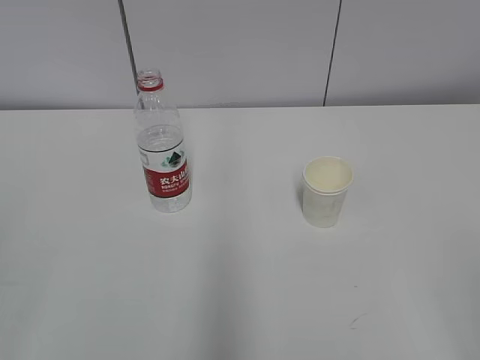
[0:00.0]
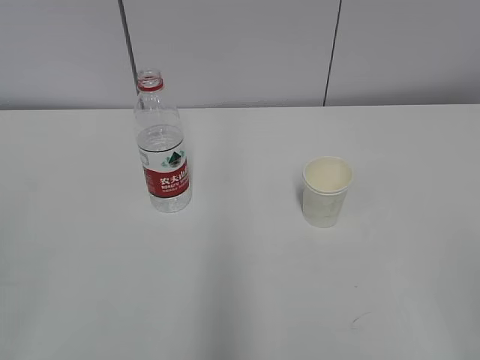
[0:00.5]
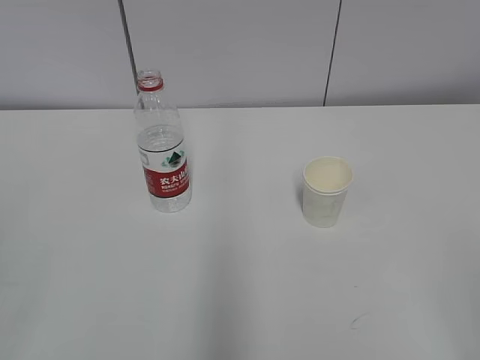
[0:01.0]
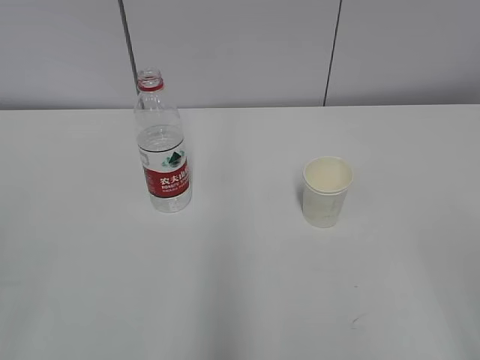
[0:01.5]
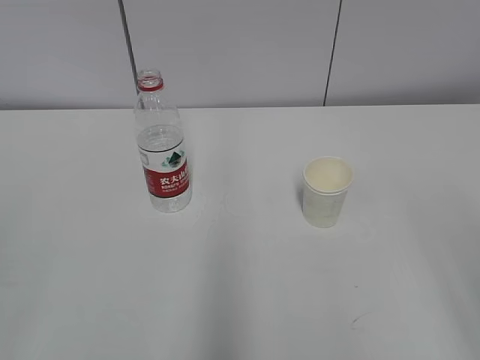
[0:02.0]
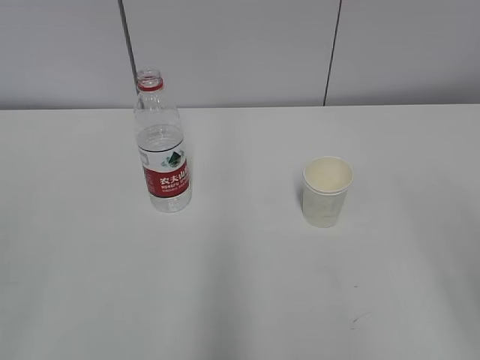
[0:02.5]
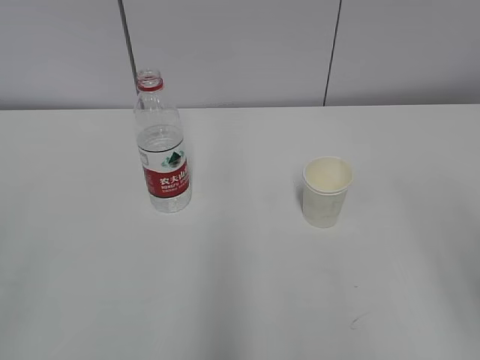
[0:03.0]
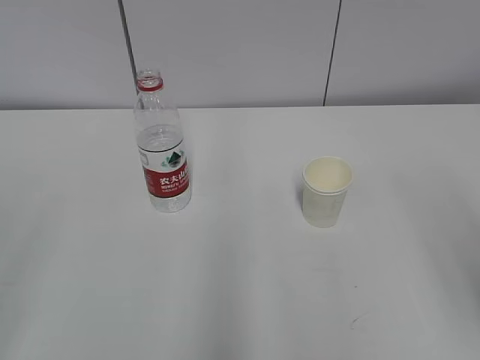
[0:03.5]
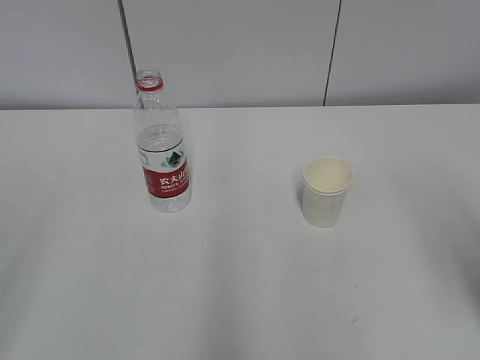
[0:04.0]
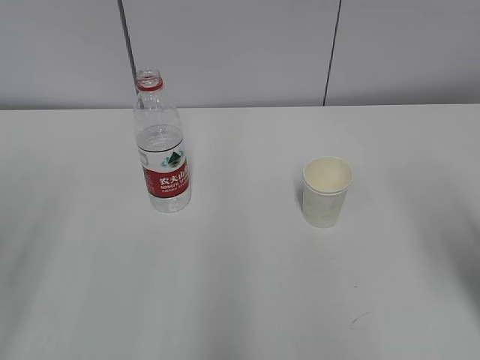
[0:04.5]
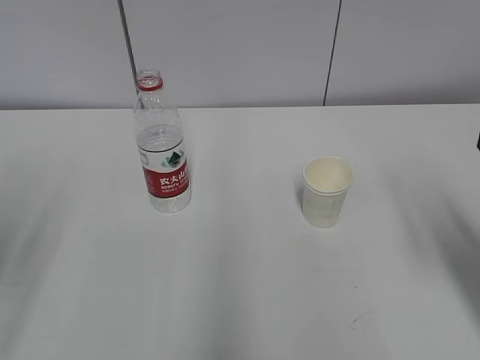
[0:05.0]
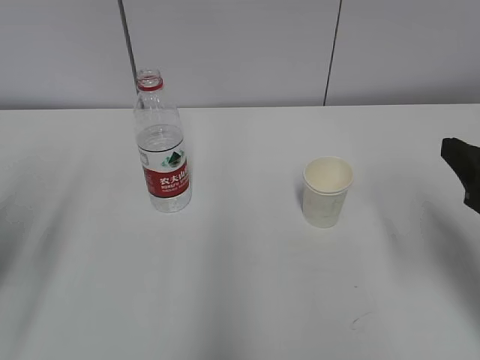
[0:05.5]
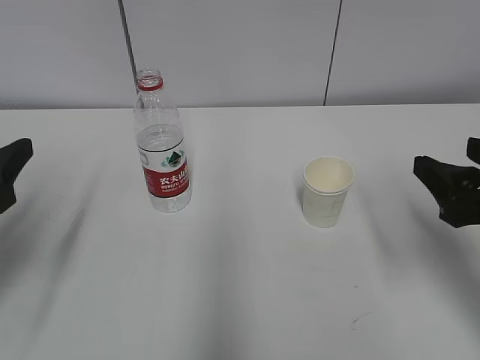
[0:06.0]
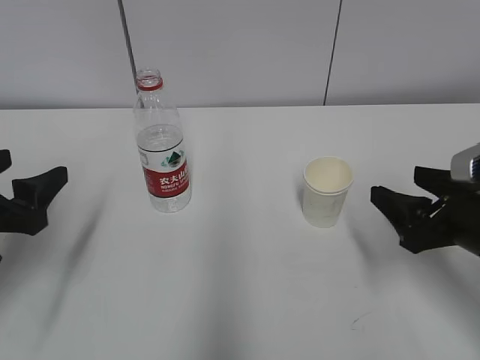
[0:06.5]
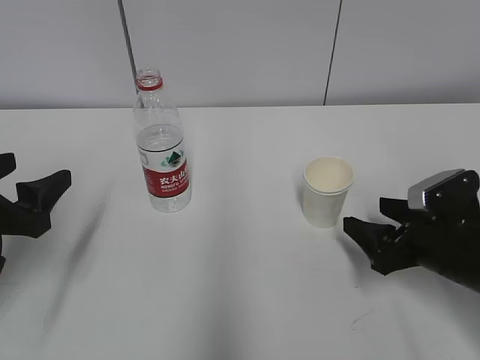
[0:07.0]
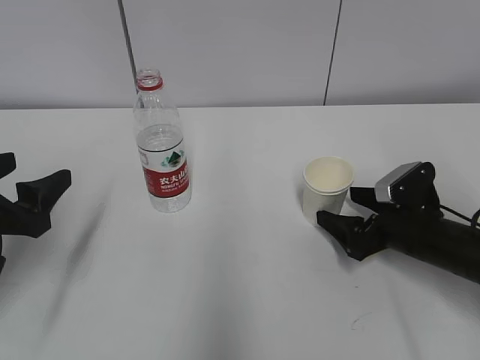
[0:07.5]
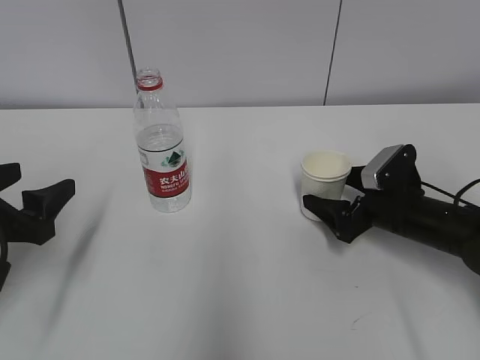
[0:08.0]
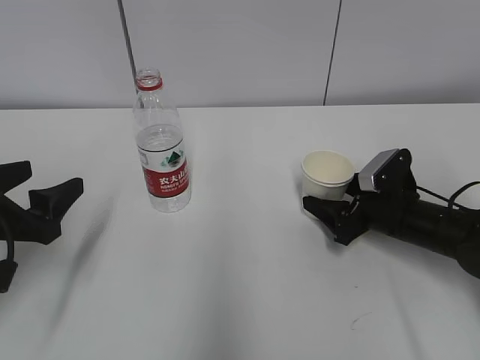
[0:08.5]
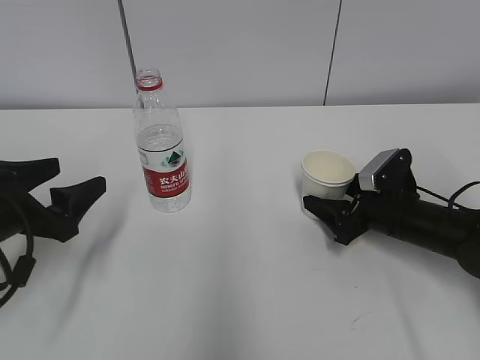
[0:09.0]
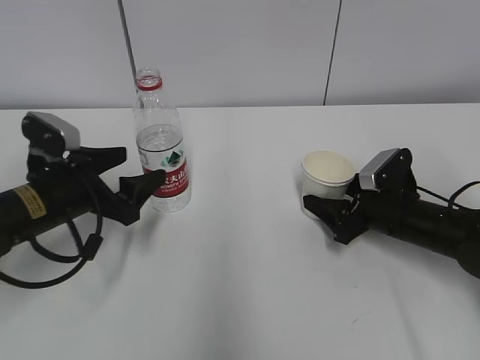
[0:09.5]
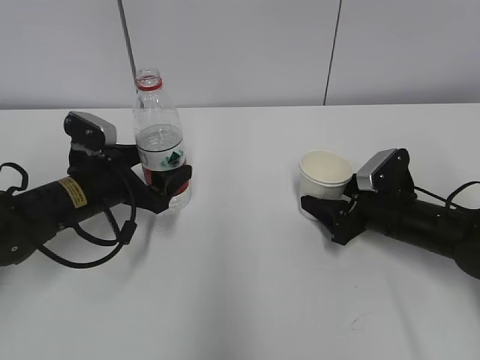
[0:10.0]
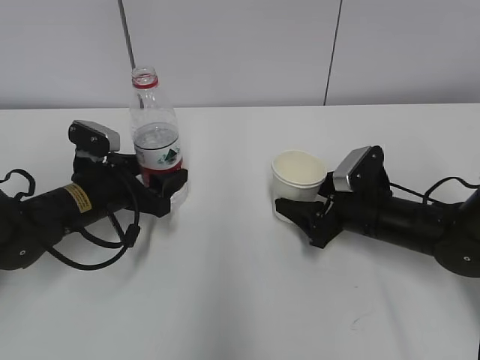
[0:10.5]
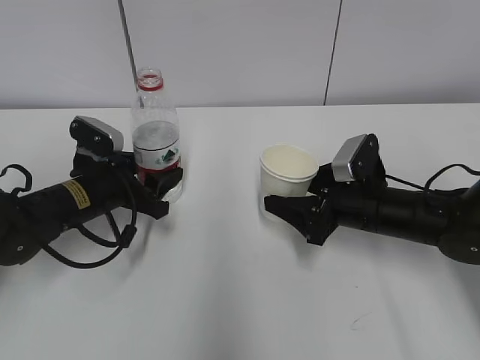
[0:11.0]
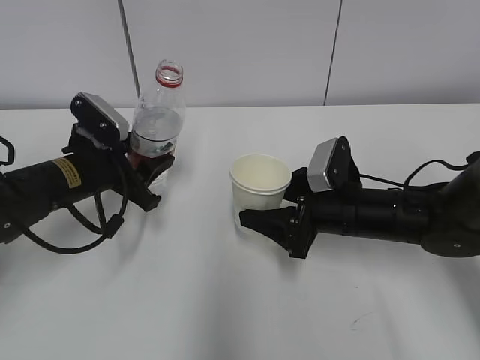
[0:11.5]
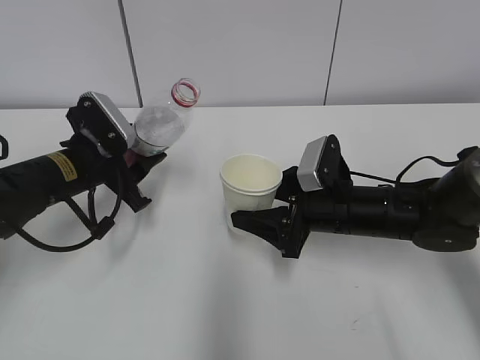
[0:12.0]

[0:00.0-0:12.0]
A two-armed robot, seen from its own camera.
Step, 0.0 to 8.0 s: Grab the paper cup with the right hand.
4.0 to 6.0 s: The two grippers go about 15 cm forward and downward.
6.0 to 8.0 s: The right gripper moves downward and forward, approximately 20 cm, and opens, while the left gripper travels downward by some 5 cm.
8.0 to 10.0 s: The left gripper goes approximately 15 cm forward, to the right and downward. The right gripper closes.
10.0 to 12.0 s: The left gripper closes its fingers; the right gripper moves to the left, approximately 10 cm.

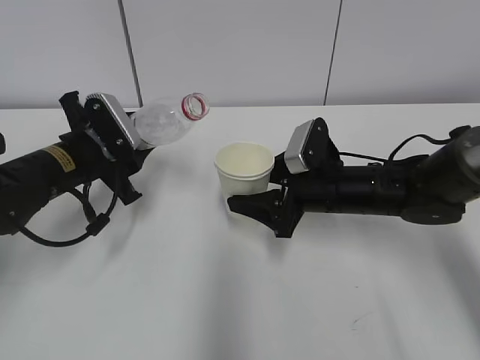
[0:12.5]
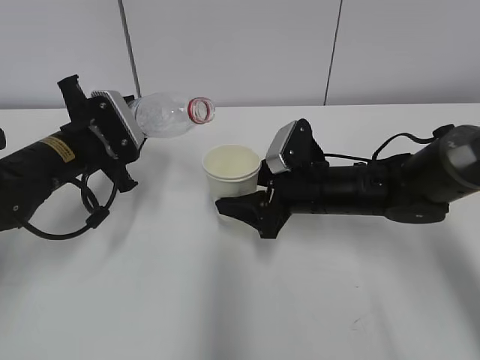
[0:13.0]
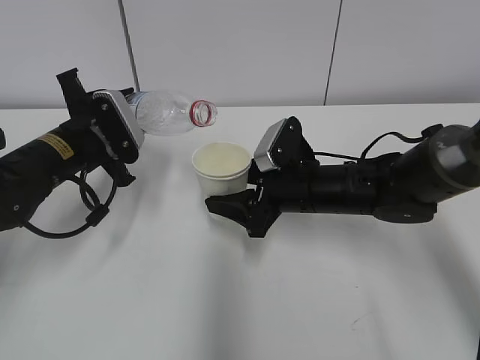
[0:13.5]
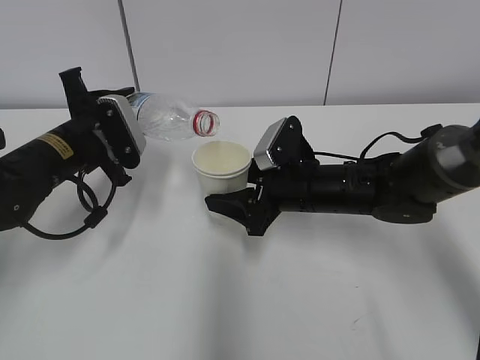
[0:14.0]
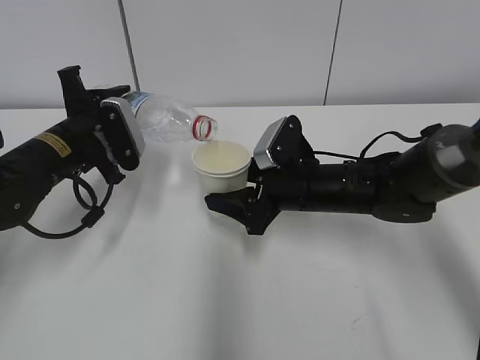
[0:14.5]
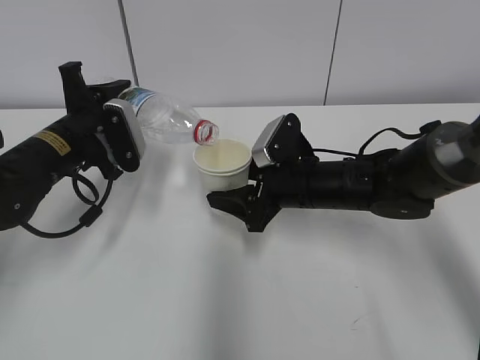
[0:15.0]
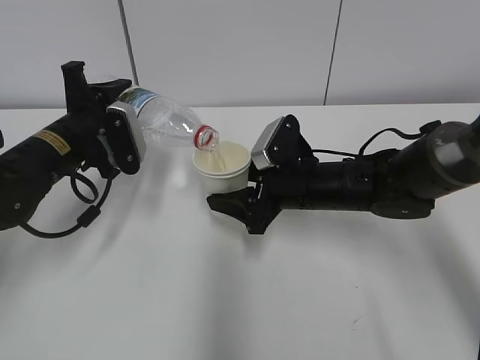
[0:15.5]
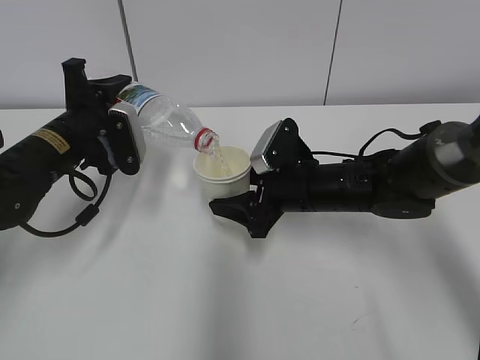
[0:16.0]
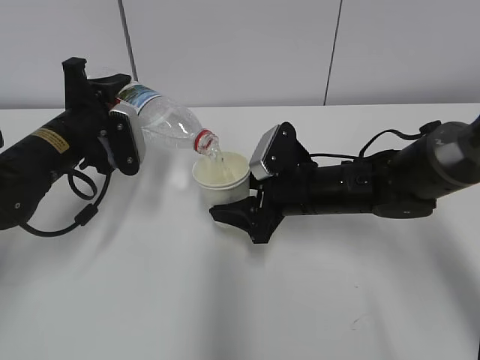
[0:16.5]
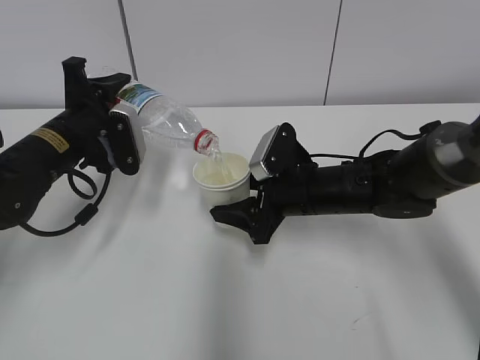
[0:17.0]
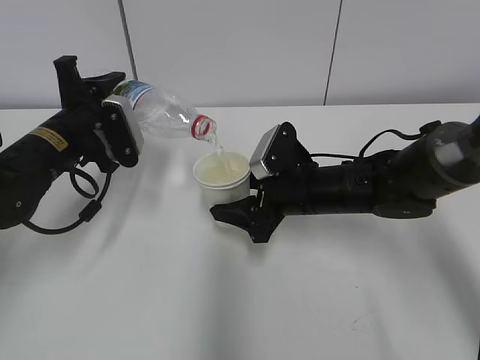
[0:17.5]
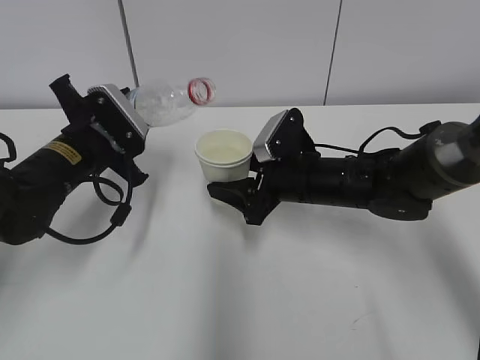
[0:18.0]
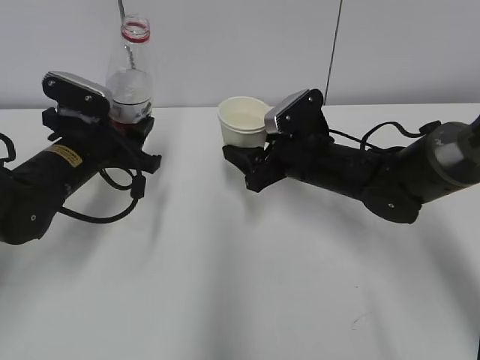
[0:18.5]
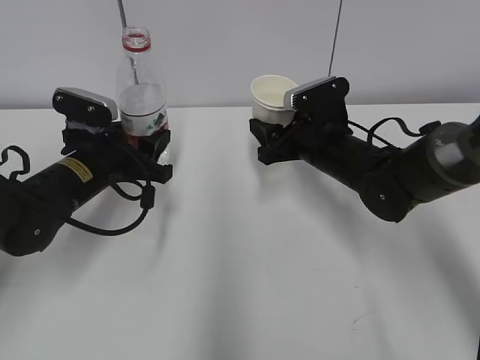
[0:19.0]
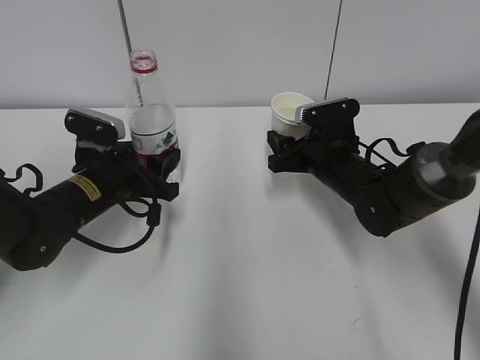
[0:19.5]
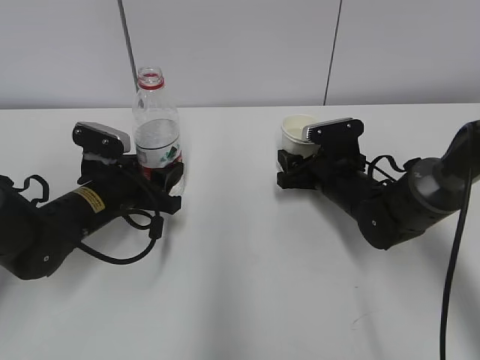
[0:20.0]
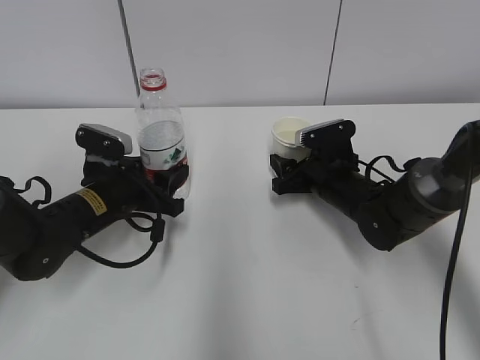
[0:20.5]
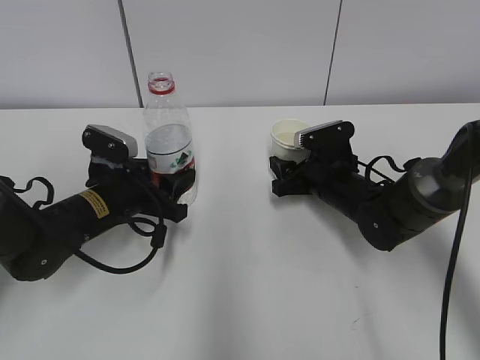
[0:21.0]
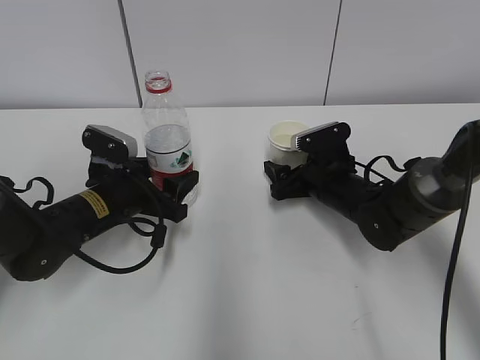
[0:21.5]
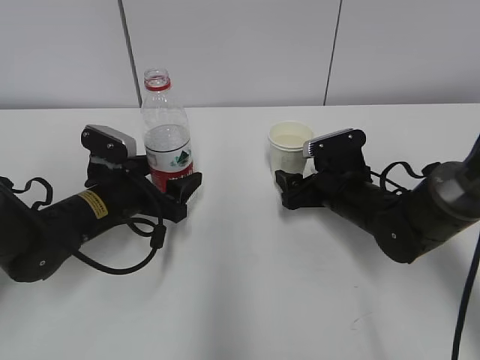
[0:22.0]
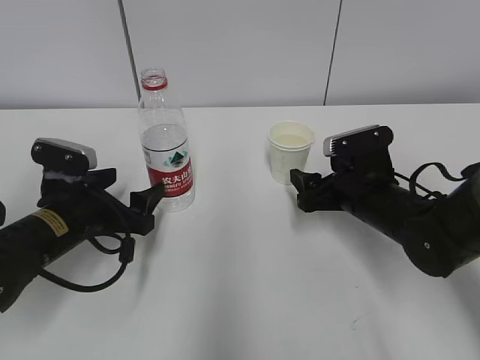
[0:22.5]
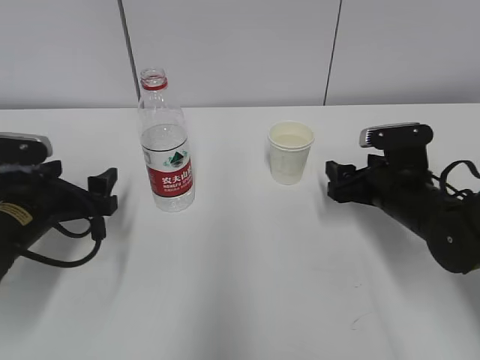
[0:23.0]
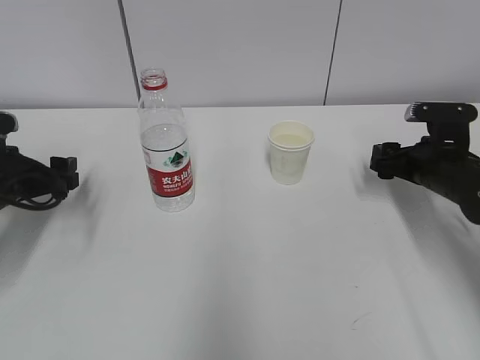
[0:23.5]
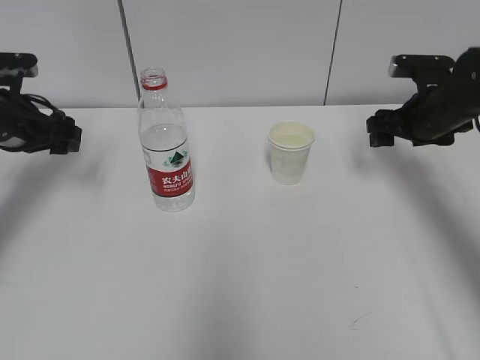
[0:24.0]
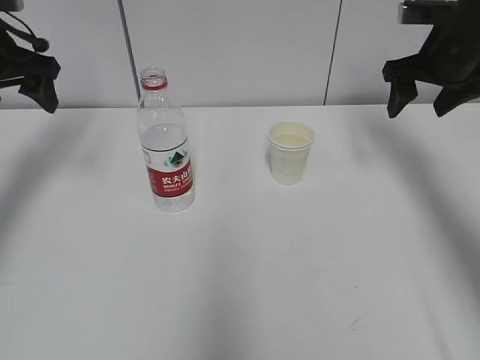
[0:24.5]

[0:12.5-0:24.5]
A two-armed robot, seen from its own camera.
Step, 12.5 to 14.5 s: Fill water with the right hand.
Step, 12.5 to 14.5 s: Pour water with the left hand.
Step, 15.0 to 15.5 s: Collect water with the left hand.
Step, 16.0 to 17.5 s: Place the paper cup with the right hand.
Step, 18.0 to 18.5 s: Place the water bottle with the left hand.
14.5 to 16.5 s: The grippers move only a little.
18.5 to 20.5 s: Both grippers travel together downward, some 5 cm.
20.5 to 22.5 s: The left gripper ends up some 5 cm from where it was, and opens its fingers, while the right gripper is displaced backward by some 5 cm, and opens its fingers.
22.5 to 24.5 s: The right gripper travels upward, to the right and forward by some 20 cm; the left gripper moves upward, forward and to the left, some 25 cm.

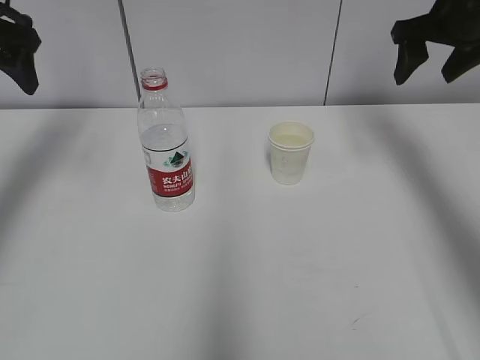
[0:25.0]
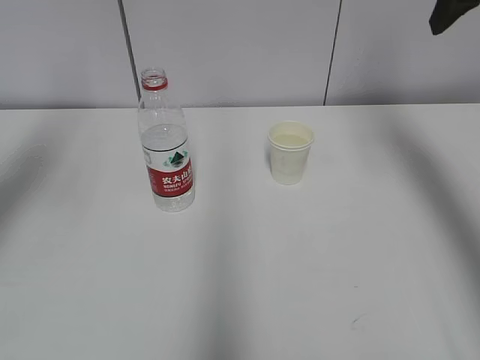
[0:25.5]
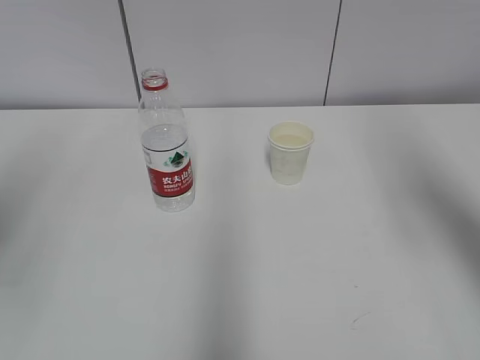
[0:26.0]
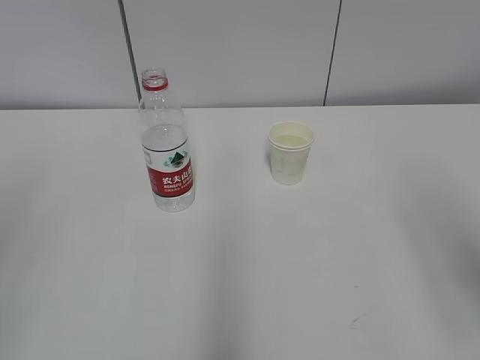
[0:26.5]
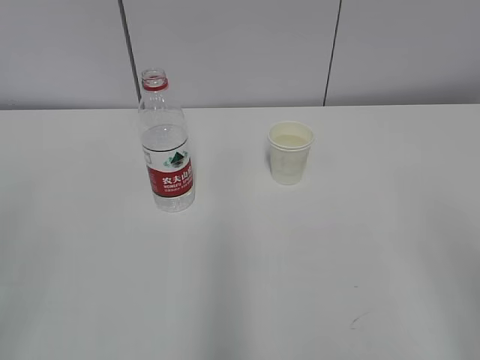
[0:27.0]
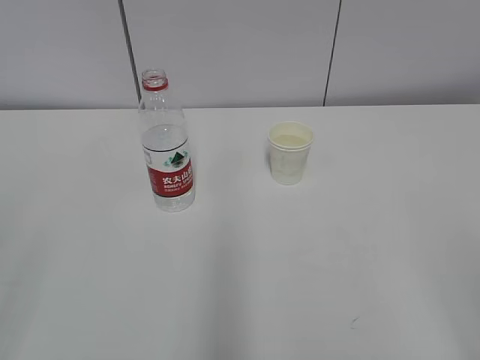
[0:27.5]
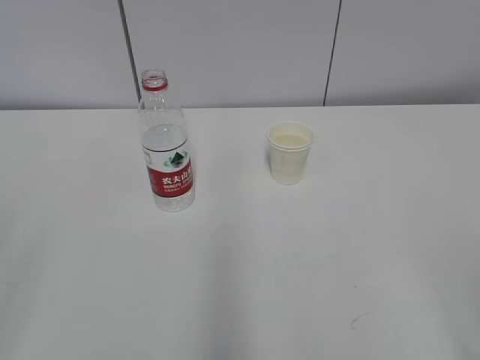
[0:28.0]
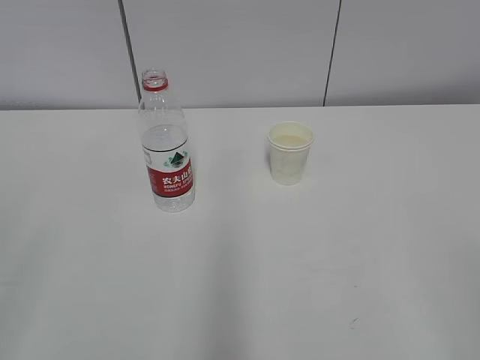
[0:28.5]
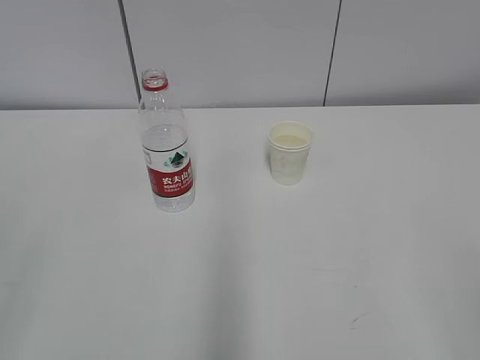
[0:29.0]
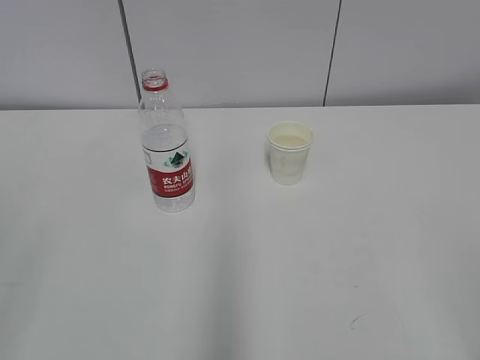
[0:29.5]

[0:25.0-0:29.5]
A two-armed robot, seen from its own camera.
25.0 to 27.0 s: Both grippers move backward, roughly 35 cm.
